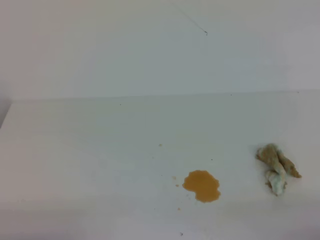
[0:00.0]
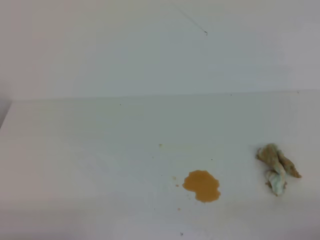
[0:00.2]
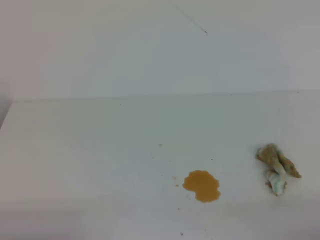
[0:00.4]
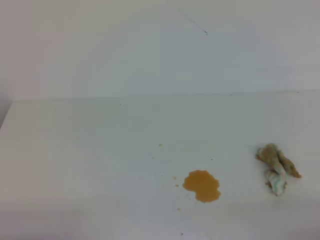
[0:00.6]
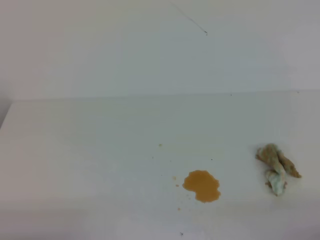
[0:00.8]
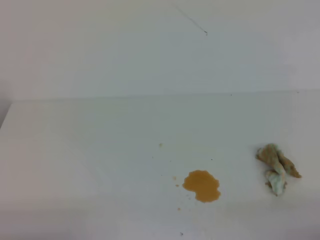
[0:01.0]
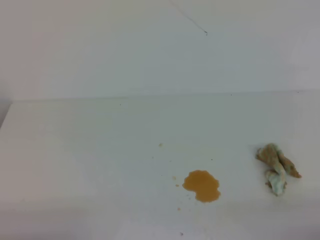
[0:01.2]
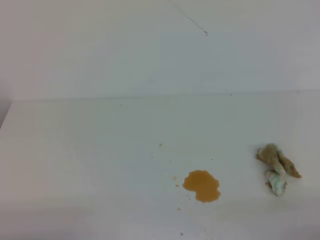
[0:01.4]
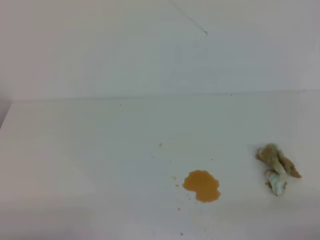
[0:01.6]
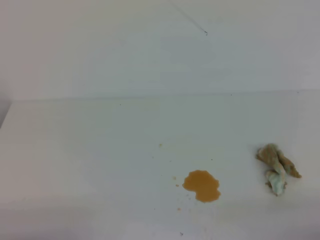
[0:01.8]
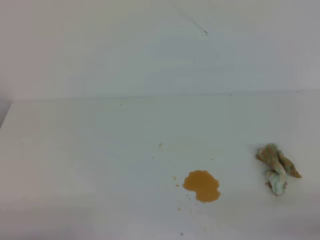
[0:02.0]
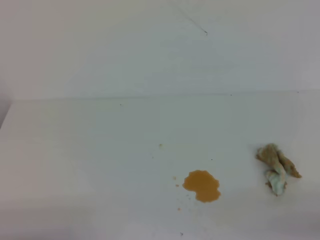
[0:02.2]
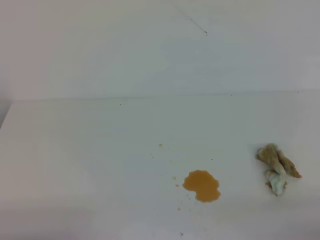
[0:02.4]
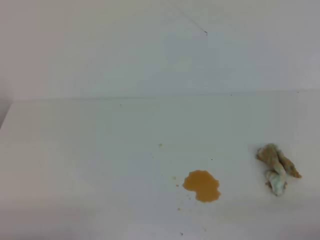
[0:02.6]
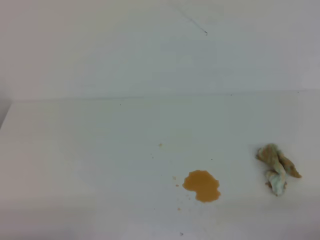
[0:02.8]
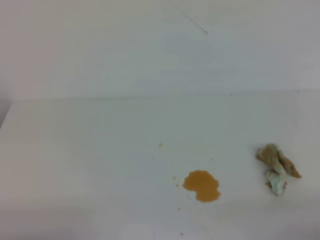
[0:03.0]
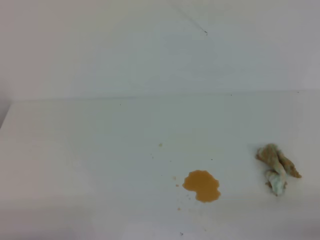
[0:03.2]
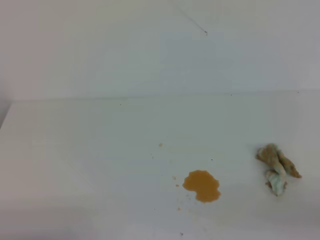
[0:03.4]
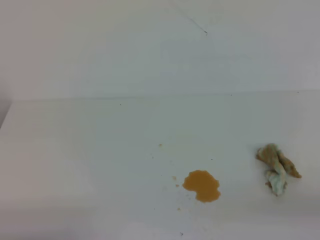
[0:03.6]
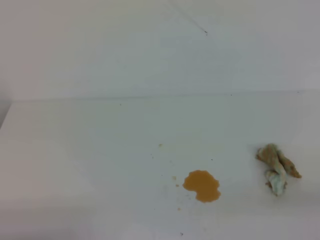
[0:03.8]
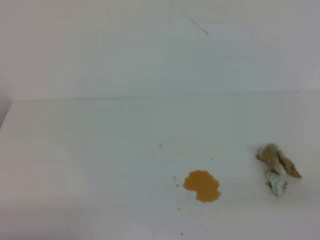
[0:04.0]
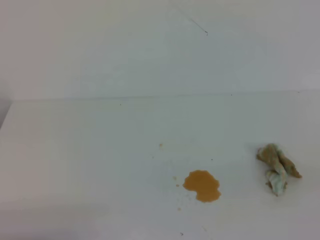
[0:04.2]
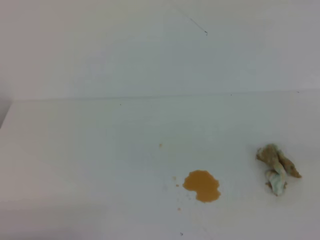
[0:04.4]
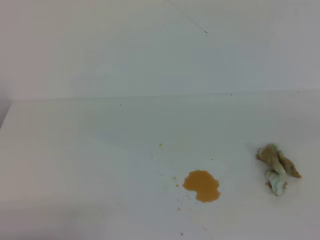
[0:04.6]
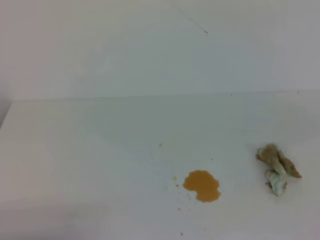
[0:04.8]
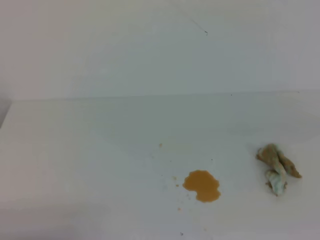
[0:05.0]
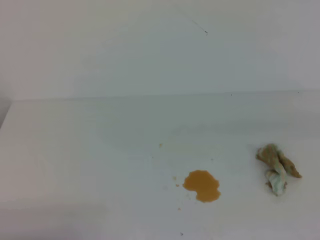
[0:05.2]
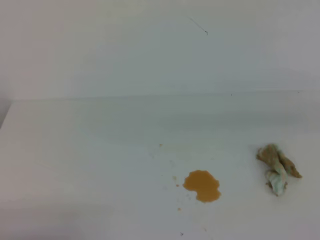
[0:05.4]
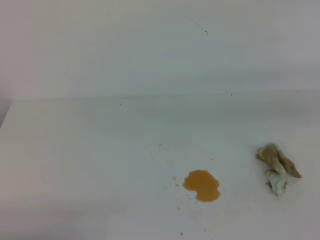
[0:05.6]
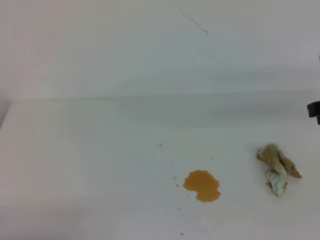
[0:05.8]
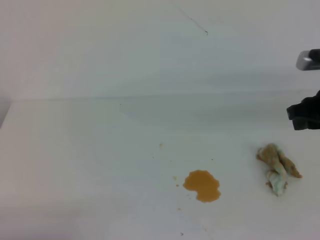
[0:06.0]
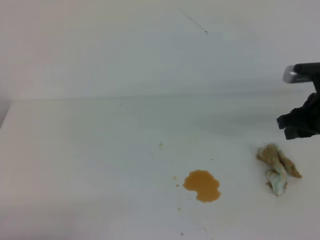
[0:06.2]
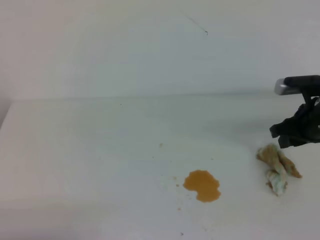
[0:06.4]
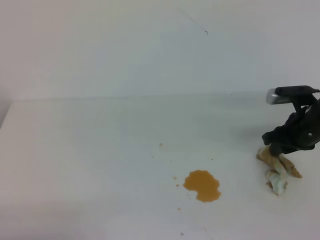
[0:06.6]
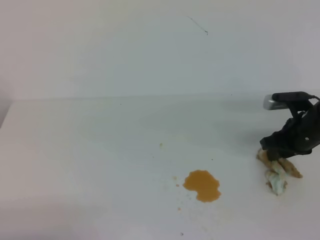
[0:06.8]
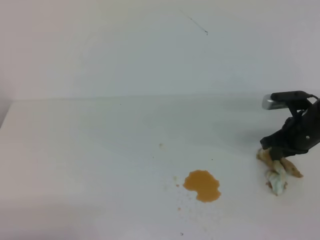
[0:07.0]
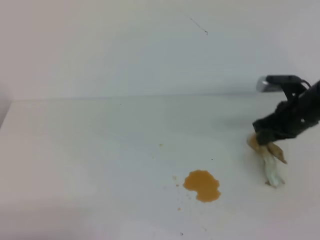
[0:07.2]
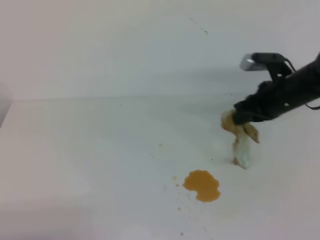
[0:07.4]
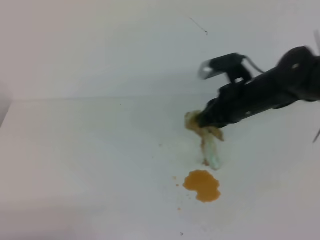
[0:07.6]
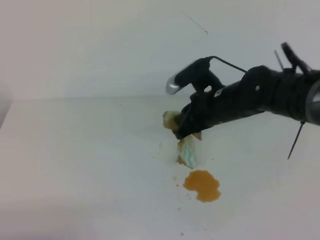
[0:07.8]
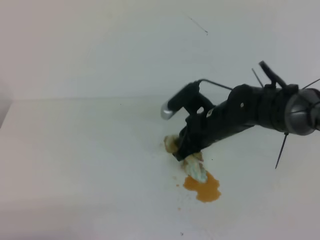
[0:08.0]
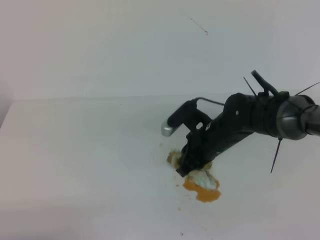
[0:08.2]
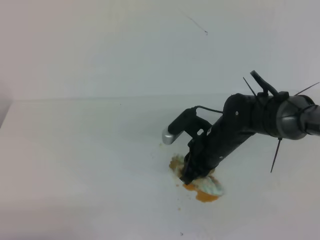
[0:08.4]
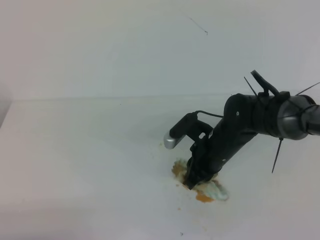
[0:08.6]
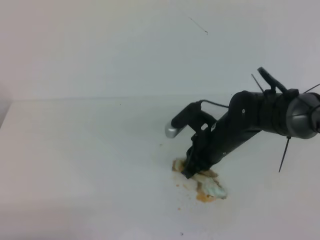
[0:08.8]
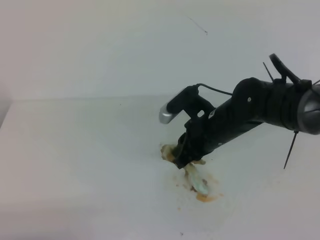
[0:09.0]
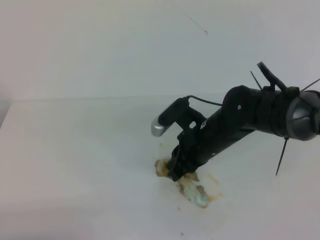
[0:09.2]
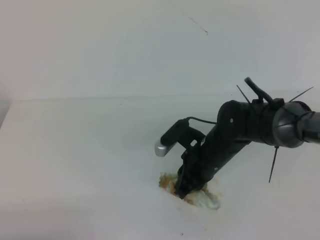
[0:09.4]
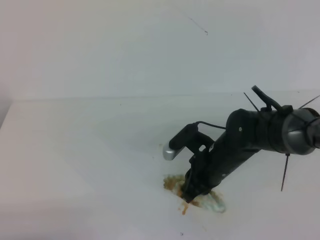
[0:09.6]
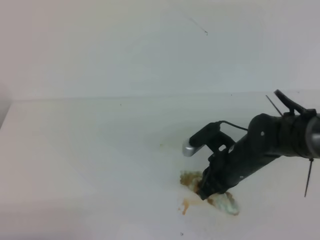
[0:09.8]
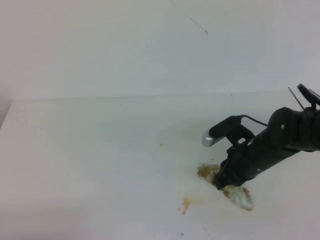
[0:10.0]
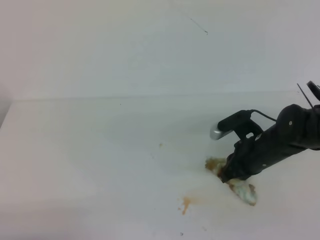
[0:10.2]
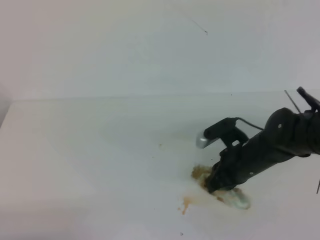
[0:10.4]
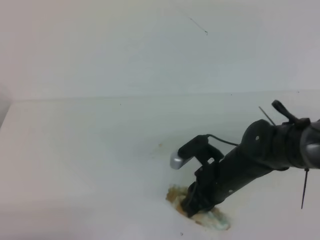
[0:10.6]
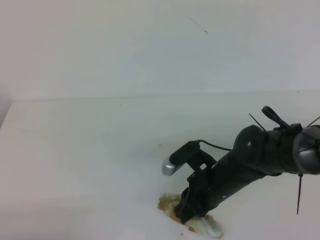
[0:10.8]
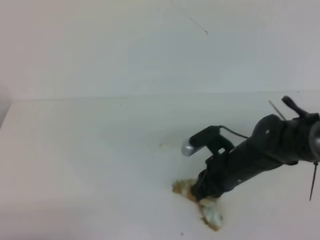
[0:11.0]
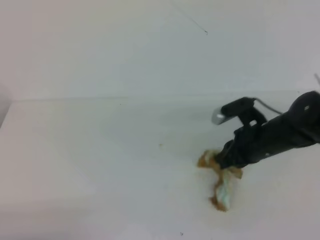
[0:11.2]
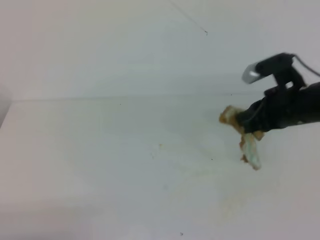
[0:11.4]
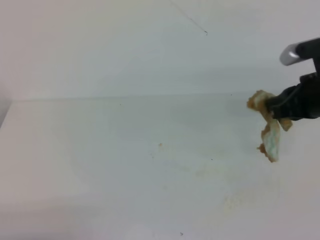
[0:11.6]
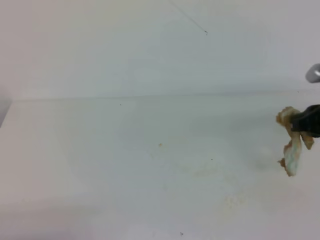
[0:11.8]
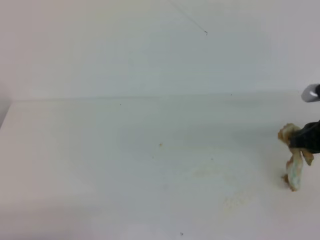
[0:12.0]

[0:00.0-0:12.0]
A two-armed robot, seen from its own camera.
0:00.0 to 0:01.6: The two grippers keep their place.
0:04.4 to 0:06.0: The right gripper travels forward by about 30 cm, and opens its fingers.
0:06.0 to 0:07.6: The right gripper moves to the left, forward and downward, some 15 cm, and closes.
0:07.6 to 0:09.0: The right gripper is displaced to the left by about 5 cm.
0:09.0 to 0:10.4: The right gripper shifts approximately 5 cm to the right.
0:10.4 to 0:12.0: The right gripper travels to the right and upward by about 15 cm.

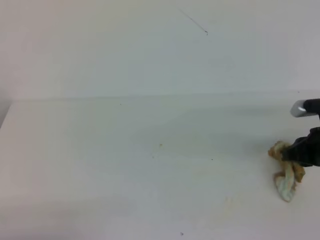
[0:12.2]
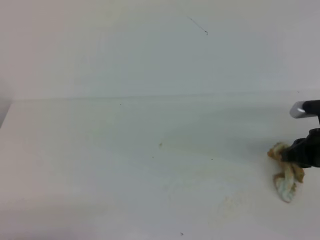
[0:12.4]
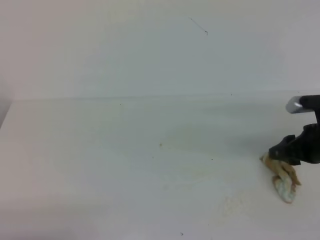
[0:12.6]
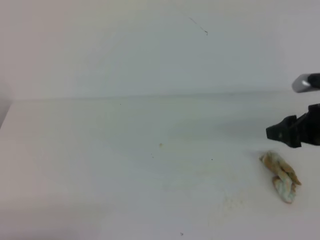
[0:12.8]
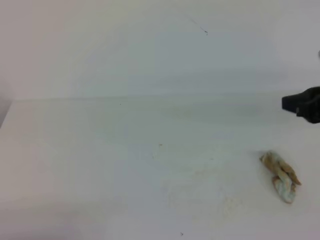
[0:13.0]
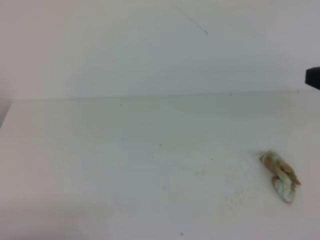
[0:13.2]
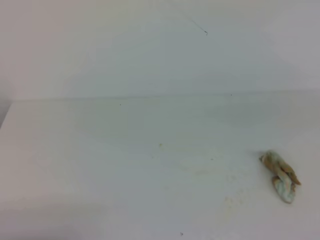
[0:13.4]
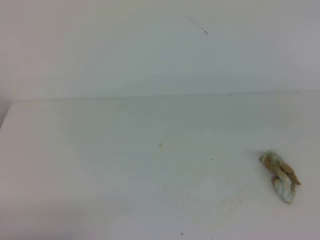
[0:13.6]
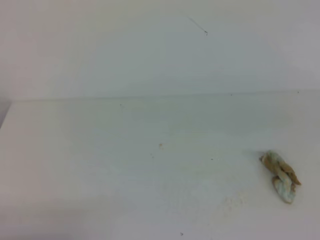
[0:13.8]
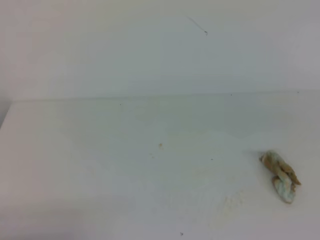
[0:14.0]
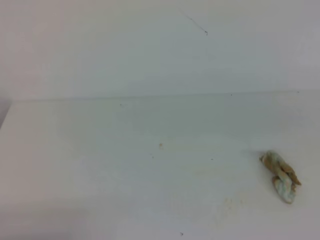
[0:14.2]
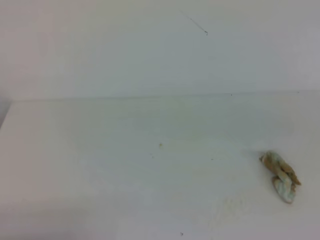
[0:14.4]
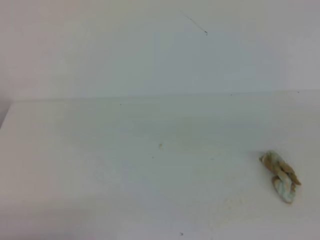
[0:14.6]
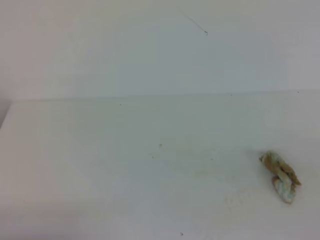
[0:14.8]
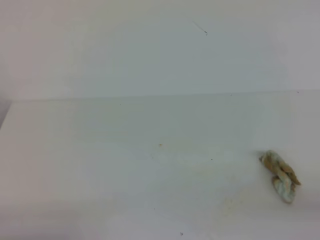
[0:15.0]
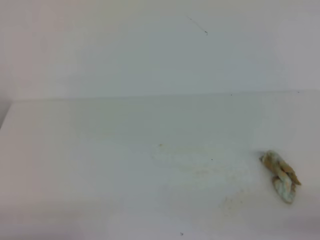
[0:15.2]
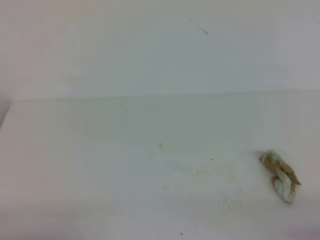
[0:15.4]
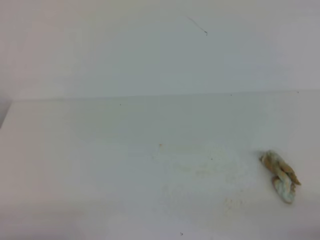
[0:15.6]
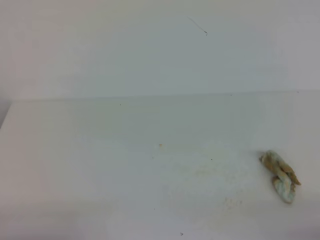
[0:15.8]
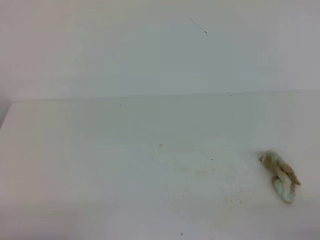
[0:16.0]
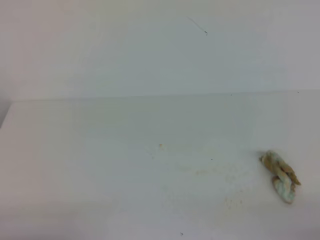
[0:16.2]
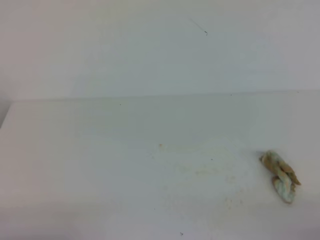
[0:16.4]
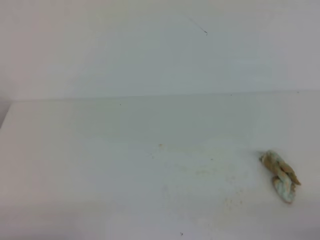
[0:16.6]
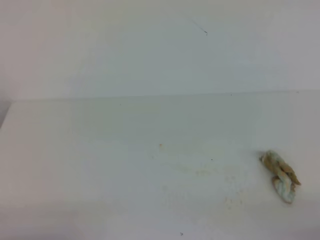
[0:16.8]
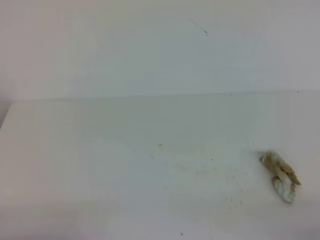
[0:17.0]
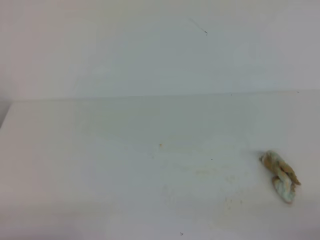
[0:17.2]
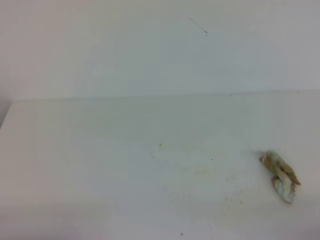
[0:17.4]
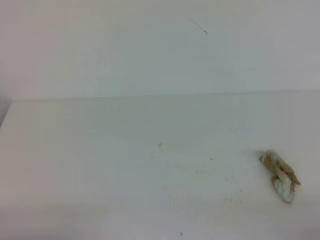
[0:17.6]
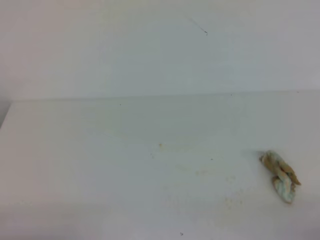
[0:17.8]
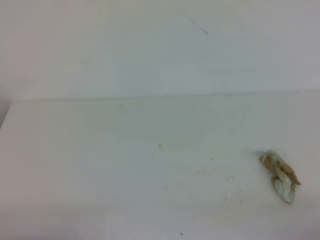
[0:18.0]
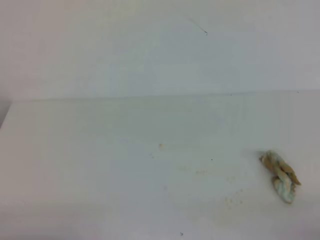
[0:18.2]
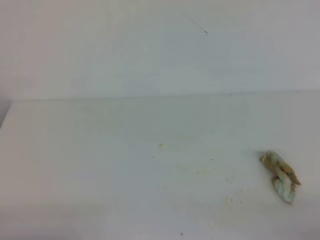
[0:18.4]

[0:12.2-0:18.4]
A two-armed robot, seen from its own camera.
0:12.2 to 0:13.8: The right gripper heads upward and backward, covering about 25 cm, and opens, then closes once more.
0:16.8 to 0:18.4: Both grippers stay put.
